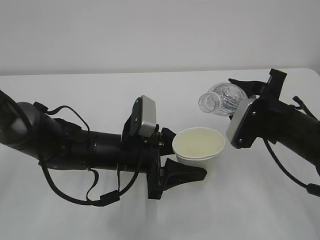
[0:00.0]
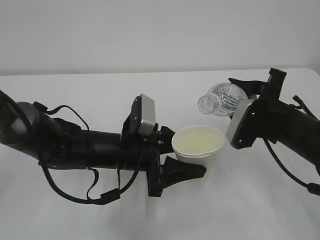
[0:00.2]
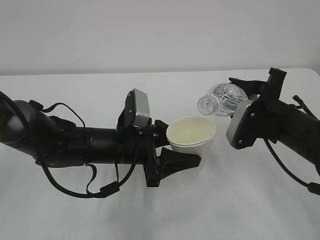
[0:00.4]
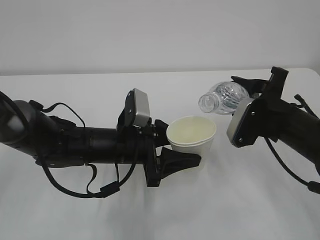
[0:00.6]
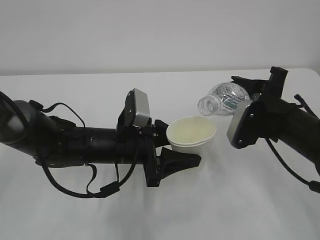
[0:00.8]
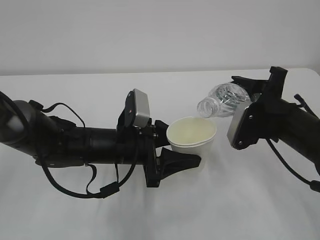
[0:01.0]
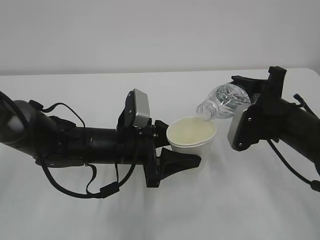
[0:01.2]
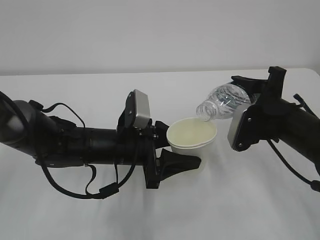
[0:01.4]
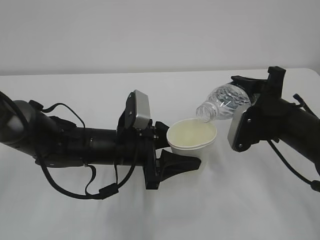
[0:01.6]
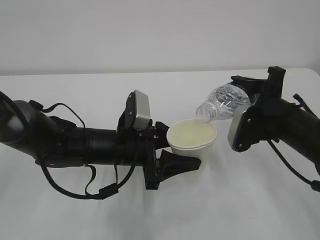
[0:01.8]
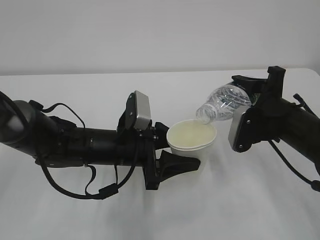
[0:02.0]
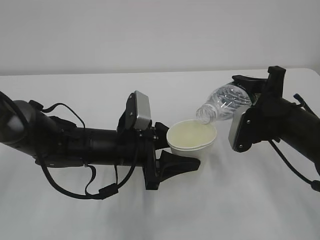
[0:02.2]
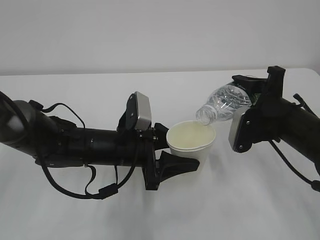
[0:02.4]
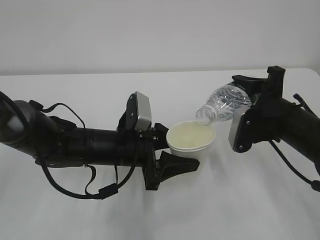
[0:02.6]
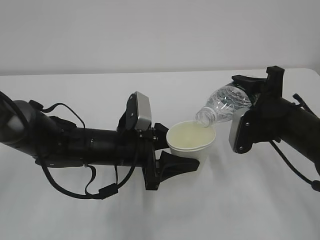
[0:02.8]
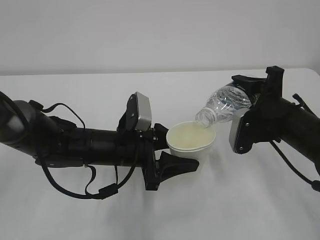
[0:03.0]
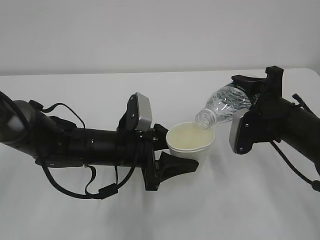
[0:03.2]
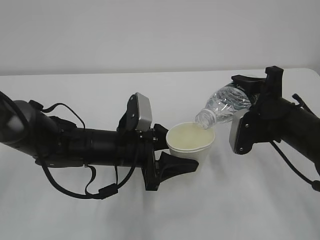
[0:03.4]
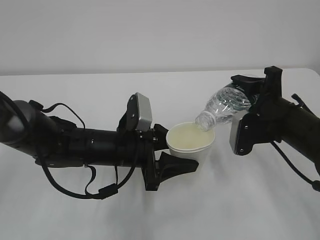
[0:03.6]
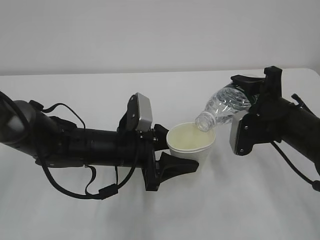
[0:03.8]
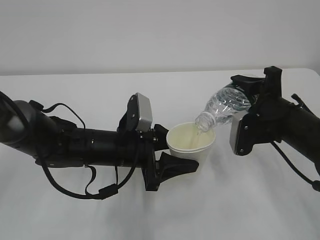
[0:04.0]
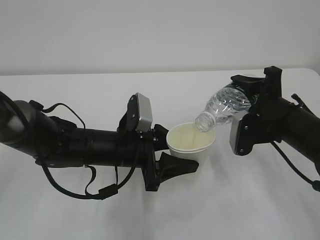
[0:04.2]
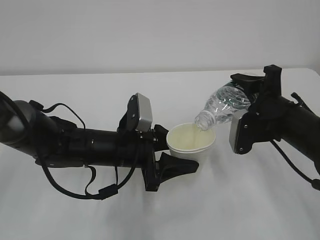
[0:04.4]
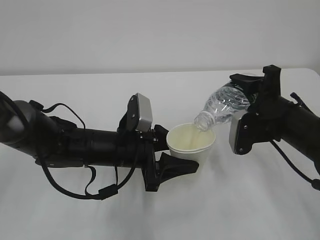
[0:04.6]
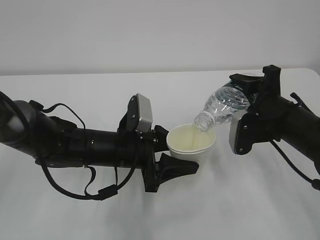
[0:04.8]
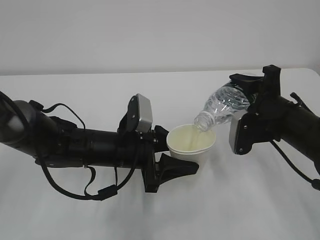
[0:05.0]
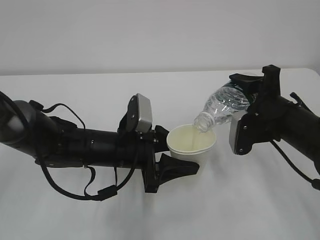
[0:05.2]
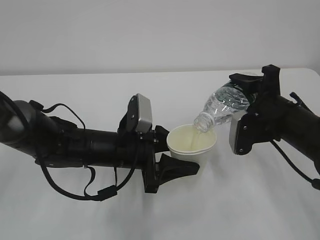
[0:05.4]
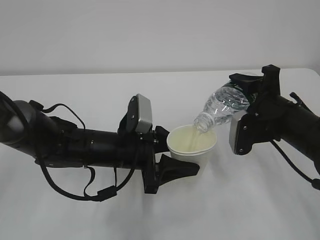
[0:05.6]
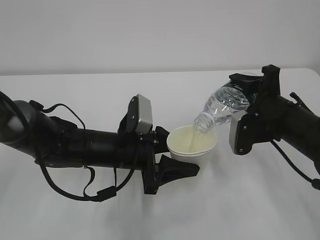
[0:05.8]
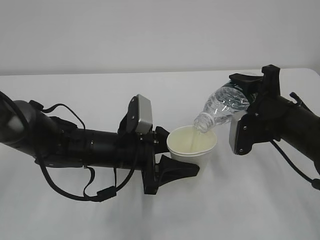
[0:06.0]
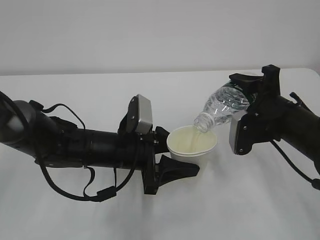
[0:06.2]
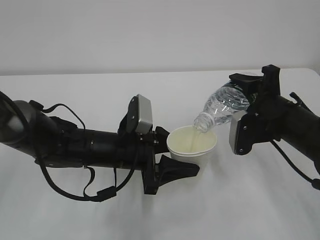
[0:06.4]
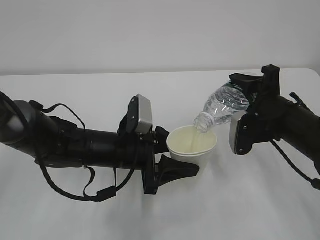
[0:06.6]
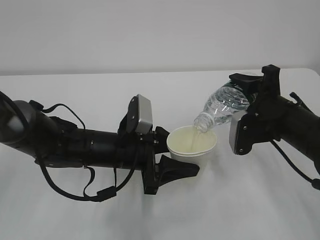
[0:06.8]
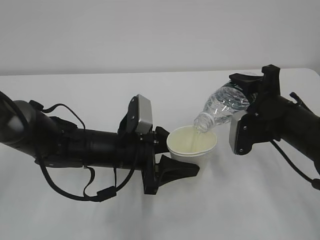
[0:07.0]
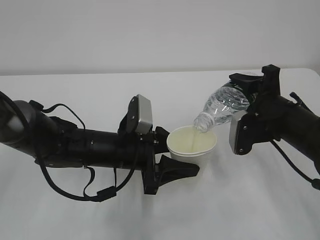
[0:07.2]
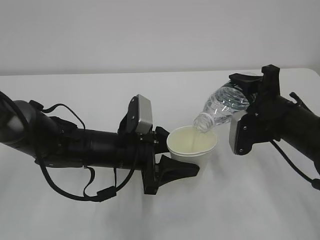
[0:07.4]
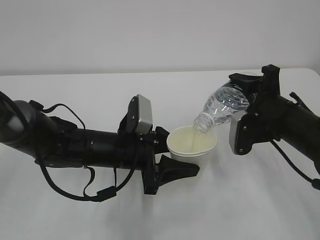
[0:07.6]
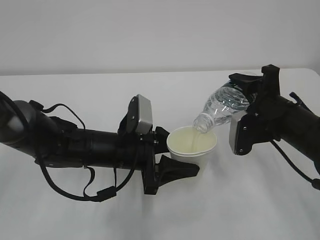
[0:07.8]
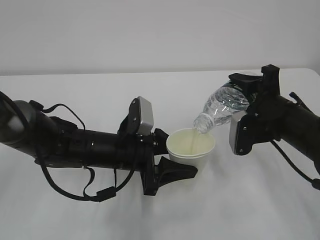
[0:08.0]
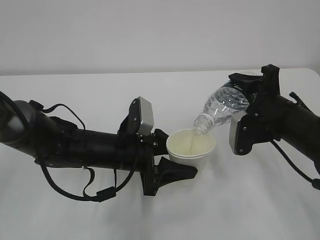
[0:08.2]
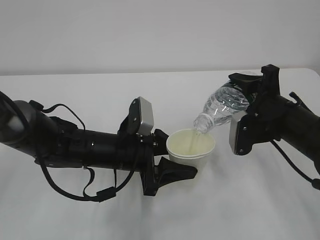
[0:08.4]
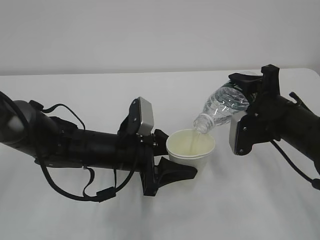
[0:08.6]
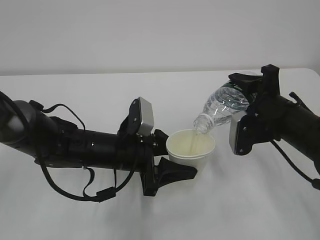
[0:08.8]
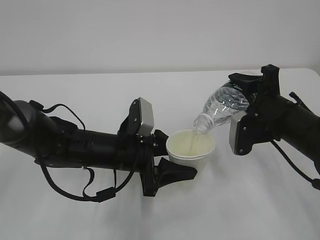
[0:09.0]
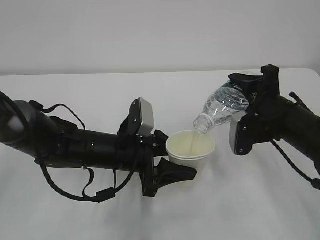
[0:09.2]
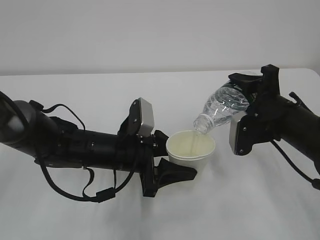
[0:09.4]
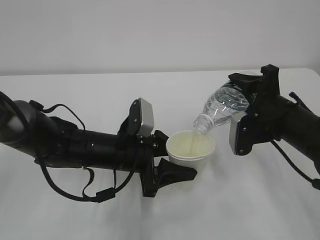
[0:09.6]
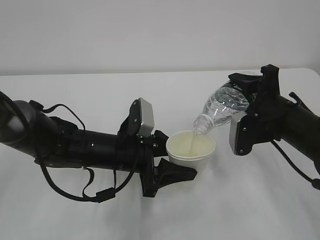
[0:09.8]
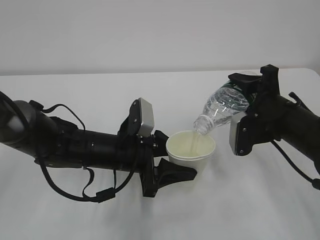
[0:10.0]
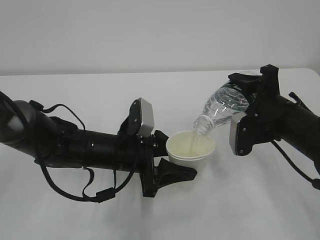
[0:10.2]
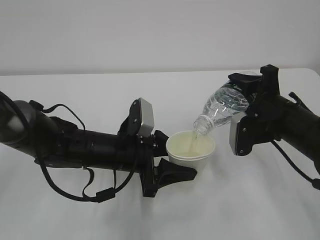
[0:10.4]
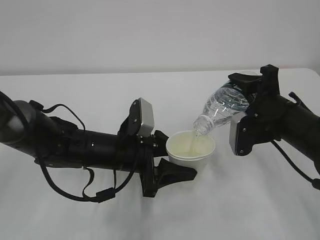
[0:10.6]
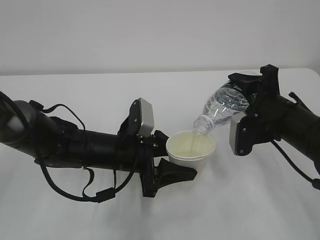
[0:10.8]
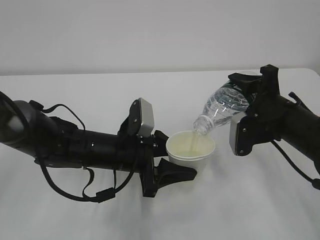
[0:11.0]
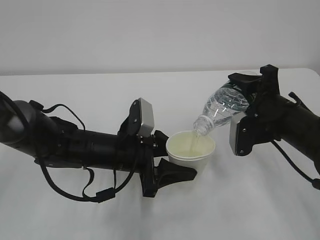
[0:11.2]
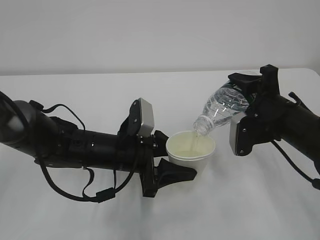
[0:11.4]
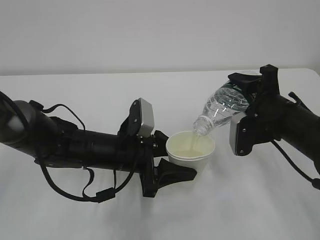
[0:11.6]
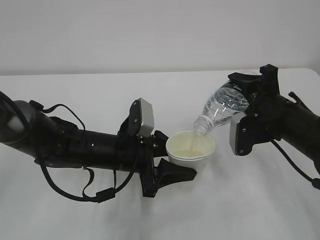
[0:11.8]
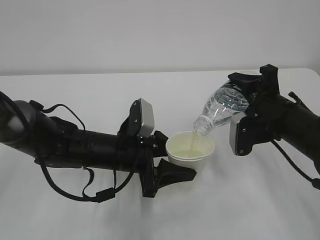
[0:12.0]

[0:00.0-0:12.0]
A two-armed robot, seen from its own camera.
0:00.0 to 0:03.0: The grippers stay close to where they were, moving slightly.
0:03.0 to 0:04.4: Both grippers stay about where they are.
0:04.4 to 0:10.4: Both grippers stay put.
0:10.4 to 0:12.0: Both grippers stay about where they are.

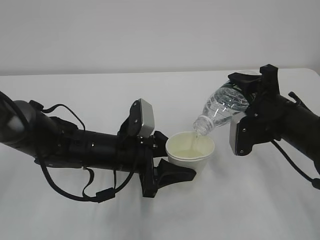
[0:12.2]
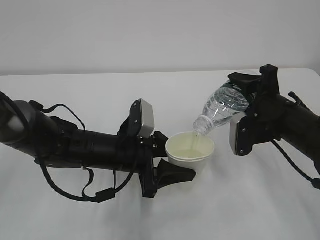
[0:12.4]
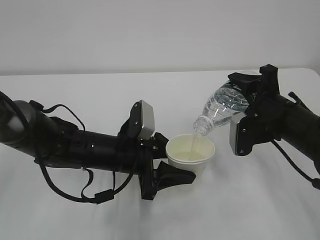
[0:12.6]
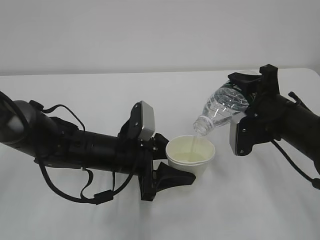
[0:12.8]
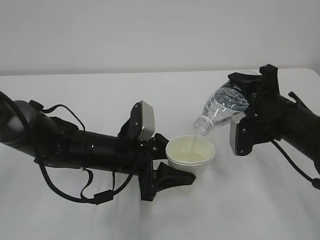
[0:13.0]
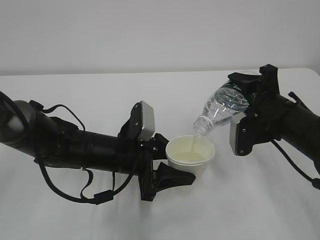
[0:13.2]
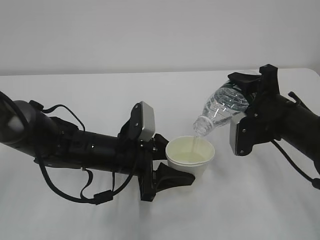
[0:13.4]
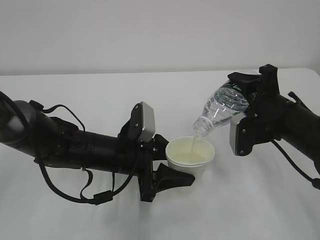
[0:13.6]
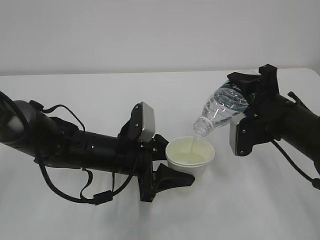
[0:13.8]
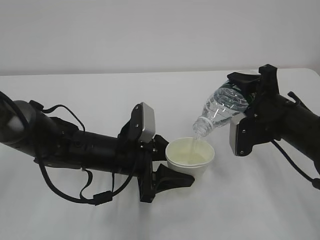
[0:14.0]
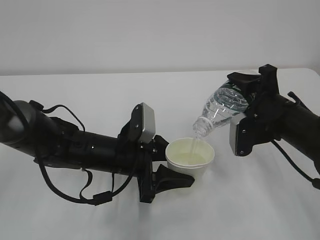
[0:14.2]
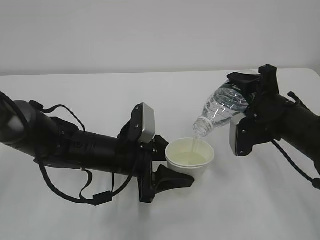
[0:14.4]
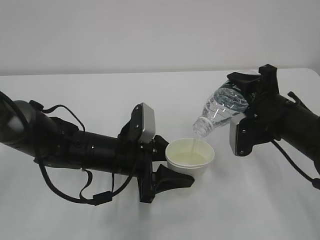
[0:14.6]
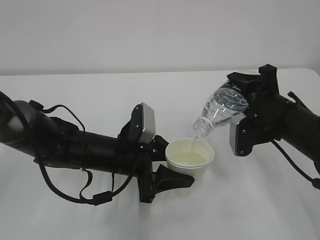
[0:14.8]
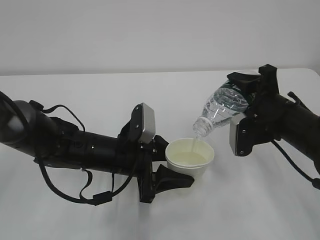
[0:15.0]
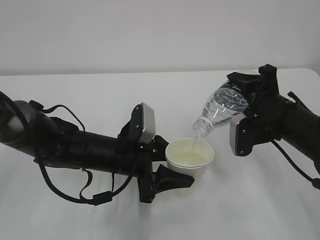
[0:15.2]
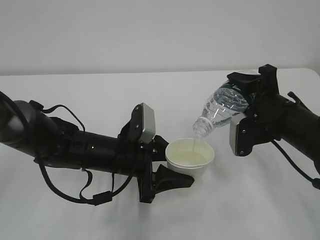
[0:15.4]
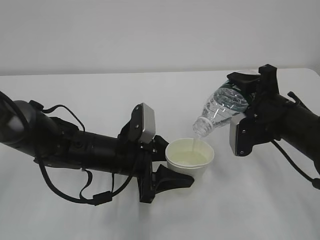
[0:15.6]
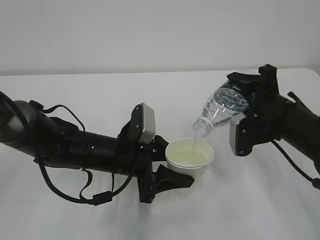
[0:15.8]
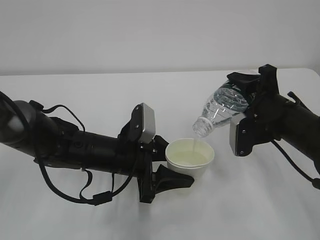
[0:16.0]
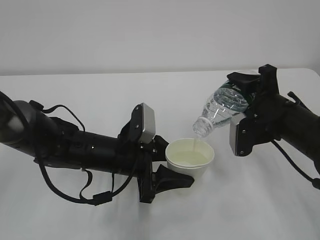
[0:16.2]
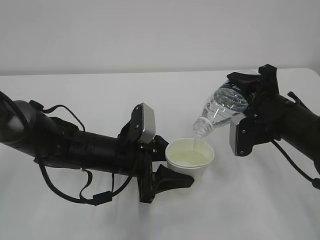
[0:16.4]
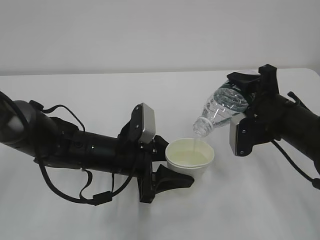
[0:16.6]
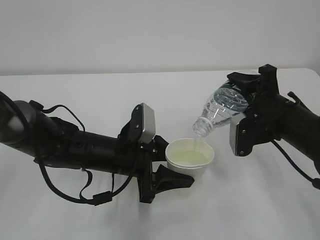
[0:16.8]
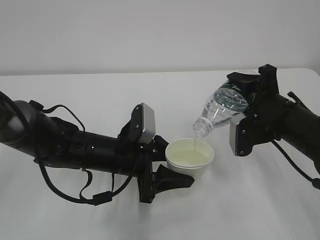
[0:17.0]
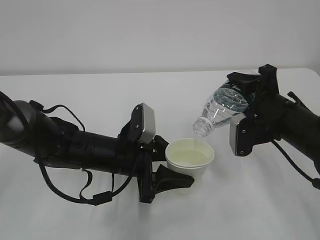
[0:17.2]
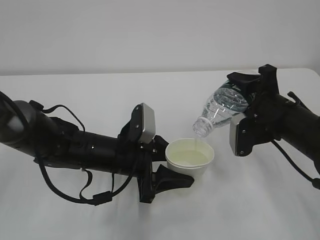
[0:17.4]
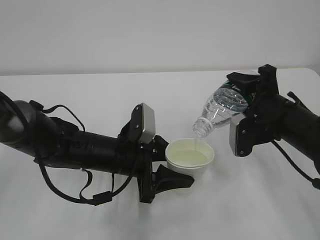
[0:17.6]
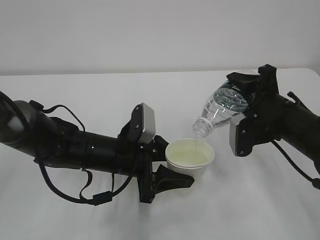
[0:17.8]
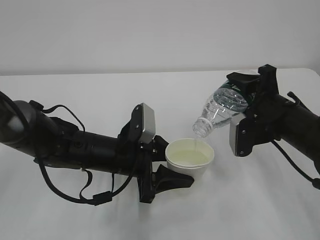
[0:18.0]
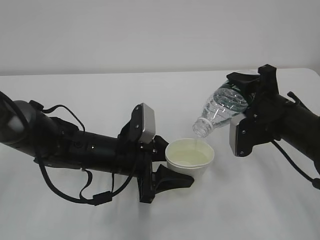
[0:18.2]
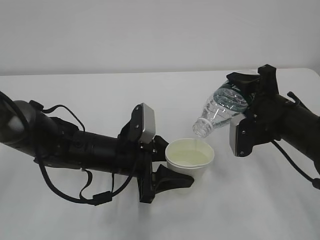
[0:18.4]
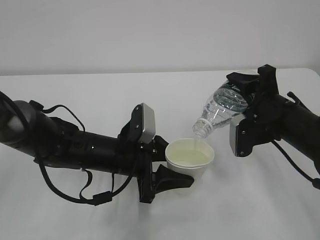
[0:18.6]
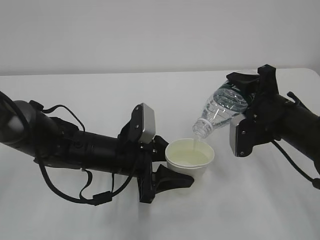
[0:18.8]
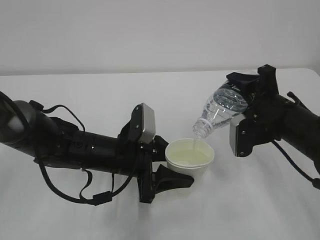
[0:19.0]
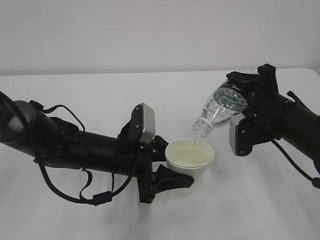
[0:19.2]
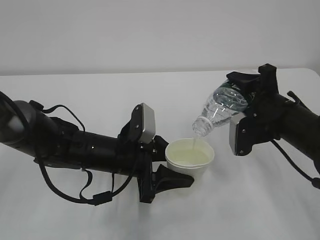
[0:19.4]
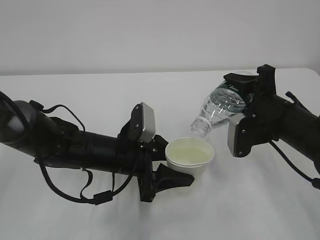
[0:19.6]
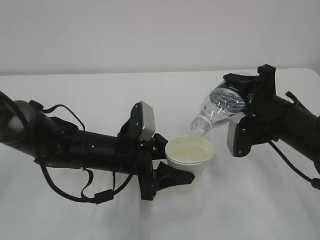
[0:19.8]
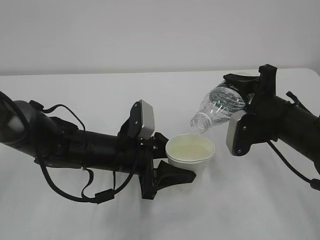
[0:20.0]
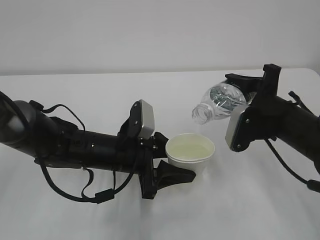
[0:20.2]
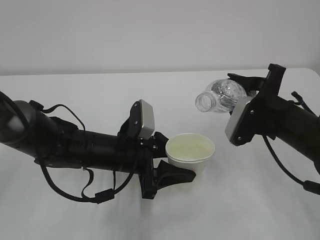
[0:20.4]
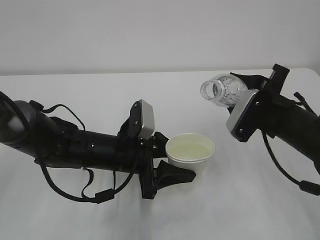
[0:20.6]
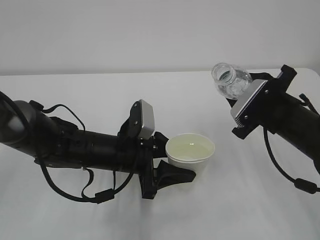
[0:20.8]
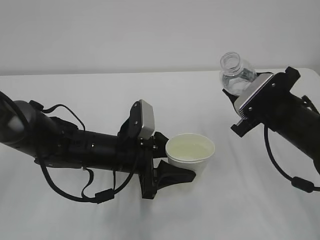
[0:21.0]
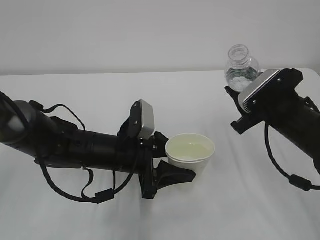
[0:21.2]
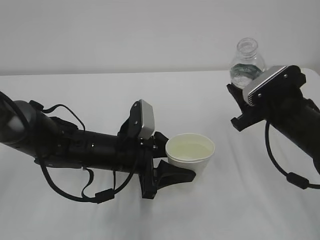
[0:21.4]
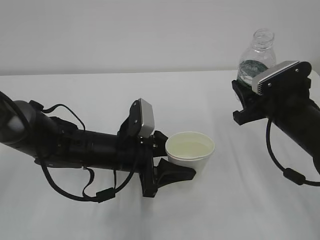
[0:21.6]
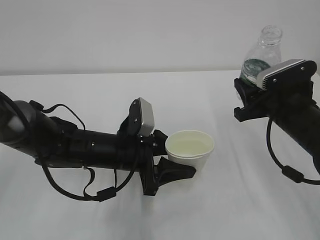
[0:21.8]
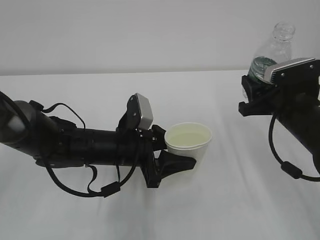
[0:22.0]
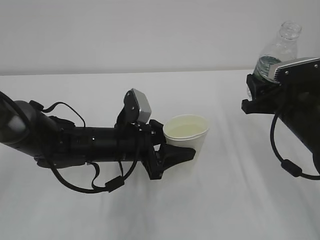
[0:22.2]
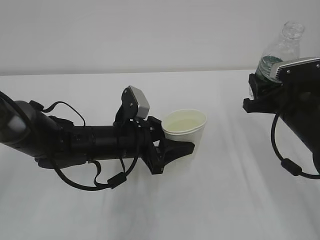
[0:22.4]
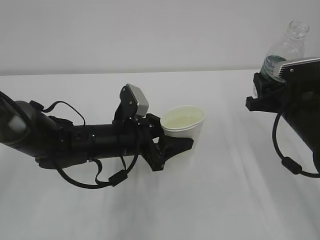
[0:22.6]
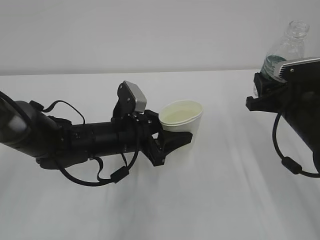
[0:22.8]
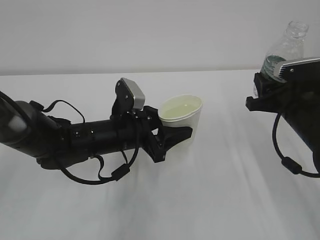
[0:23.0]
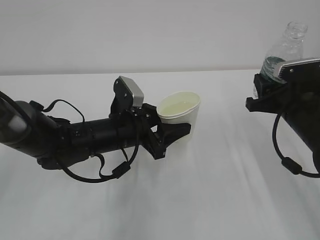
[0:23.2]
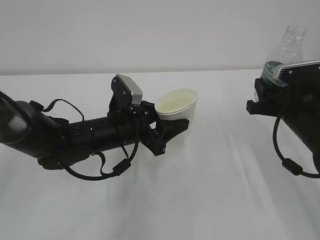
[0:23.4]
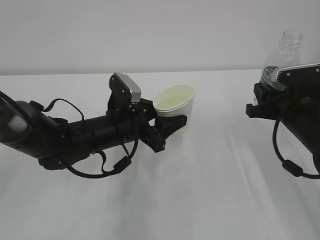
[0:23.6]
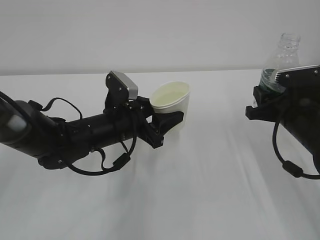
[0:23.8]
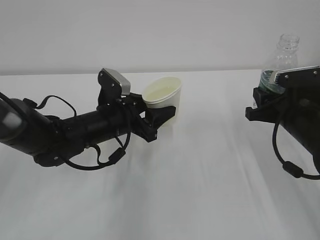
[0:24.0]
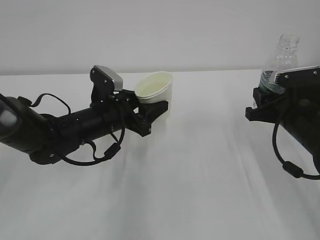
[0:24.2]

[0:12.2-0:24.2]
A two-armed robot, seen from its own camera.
0:12.2 to 0:18.2: Both grippers stay put.
0:18.2 to 0:19.8: The grippers move only a little.
0:22.6 to 0:24.2: The left gripper ends up some 5 cm from where it was.
